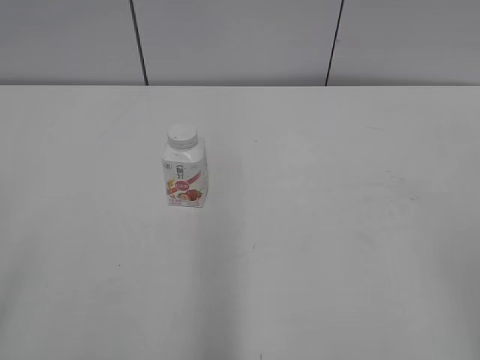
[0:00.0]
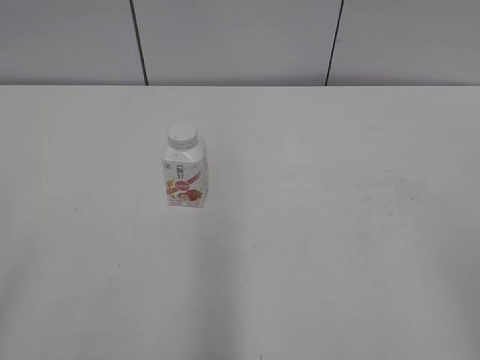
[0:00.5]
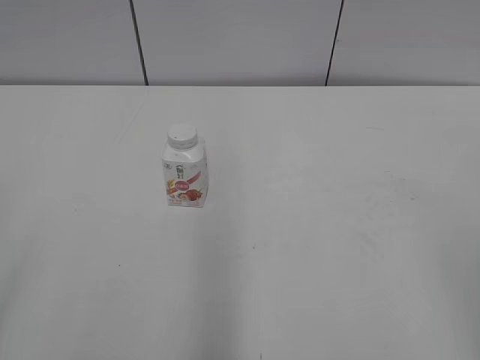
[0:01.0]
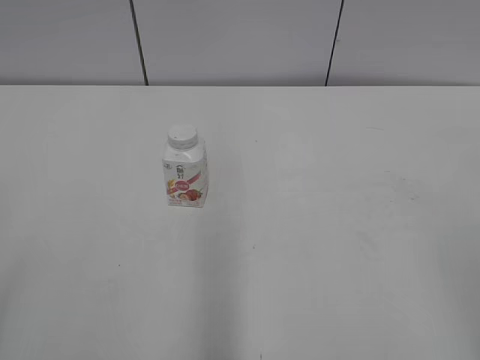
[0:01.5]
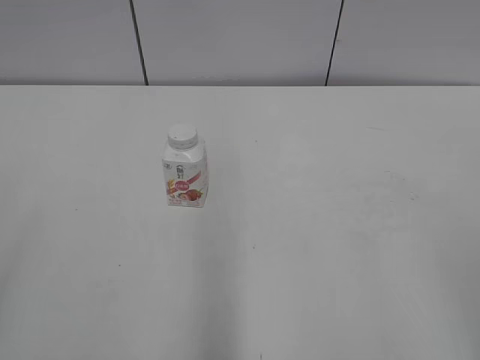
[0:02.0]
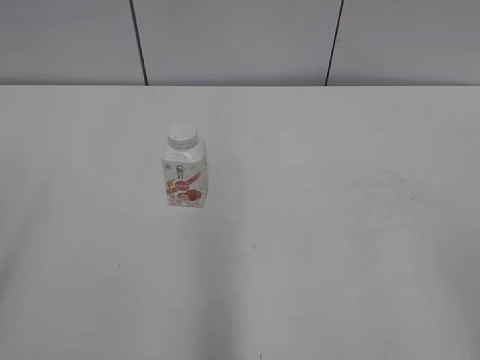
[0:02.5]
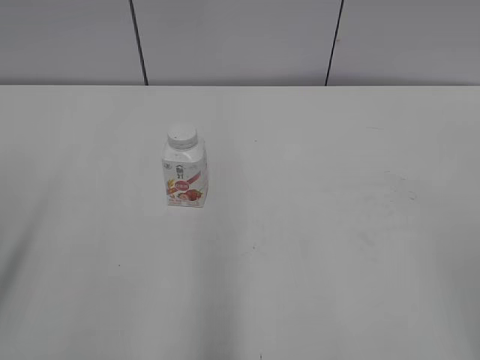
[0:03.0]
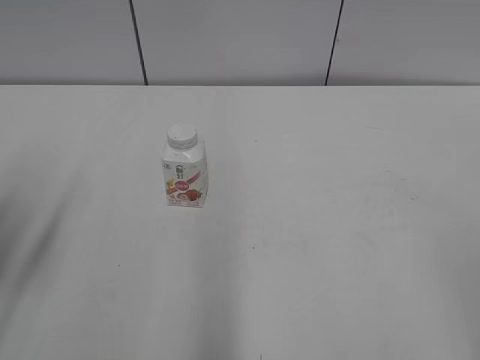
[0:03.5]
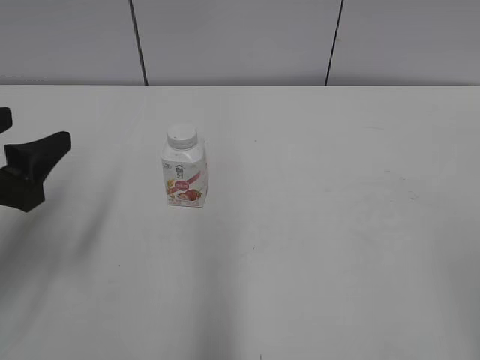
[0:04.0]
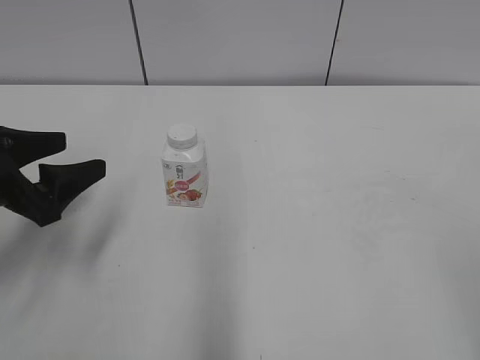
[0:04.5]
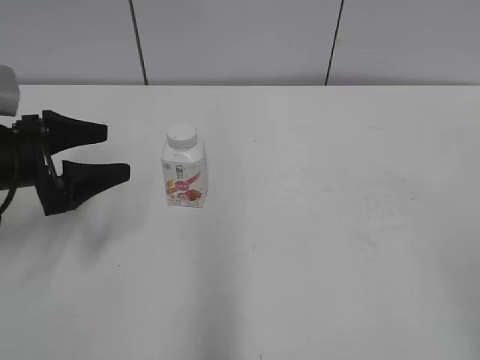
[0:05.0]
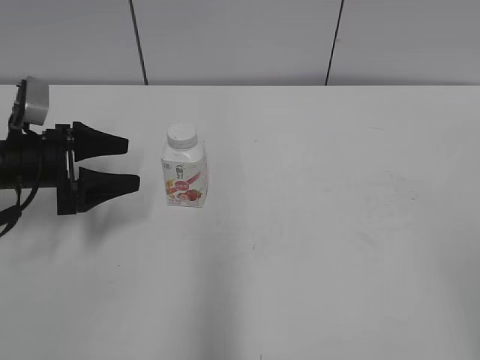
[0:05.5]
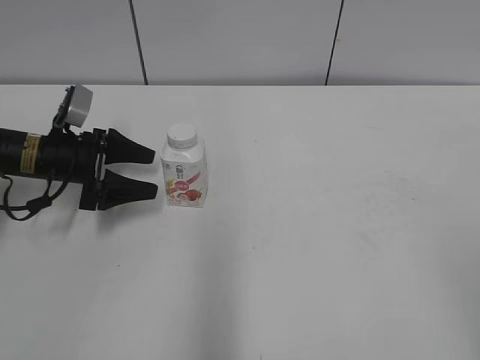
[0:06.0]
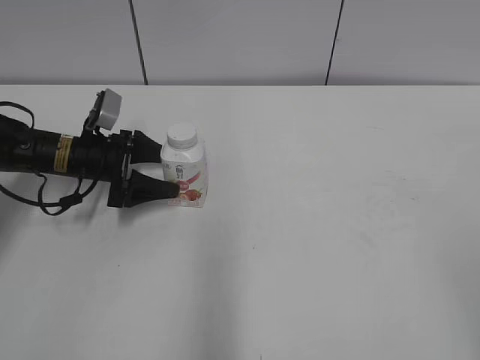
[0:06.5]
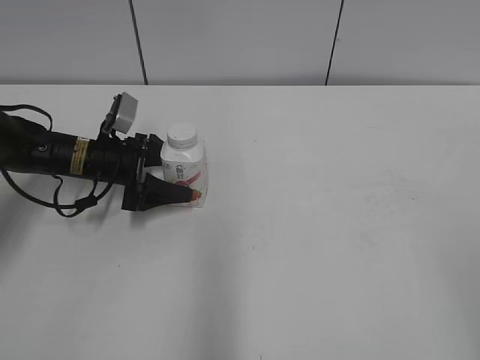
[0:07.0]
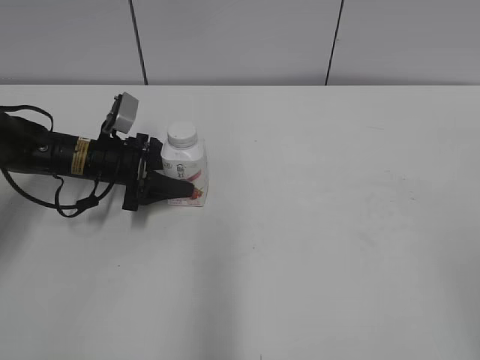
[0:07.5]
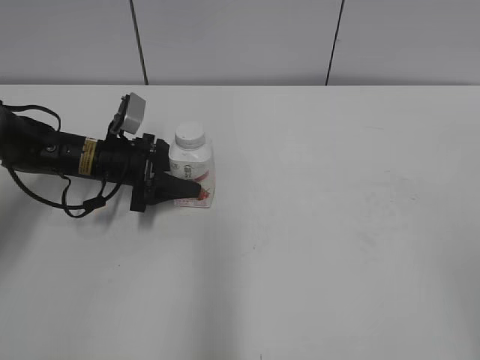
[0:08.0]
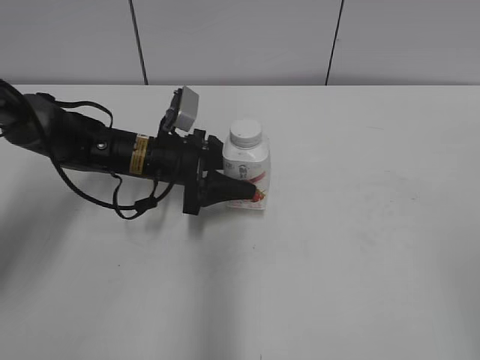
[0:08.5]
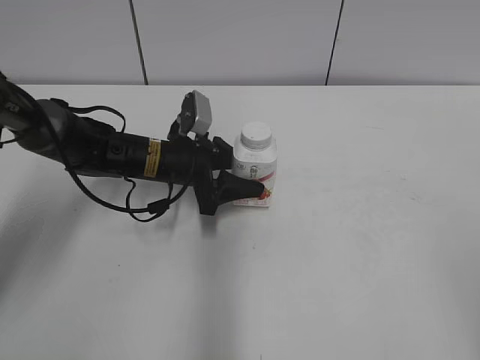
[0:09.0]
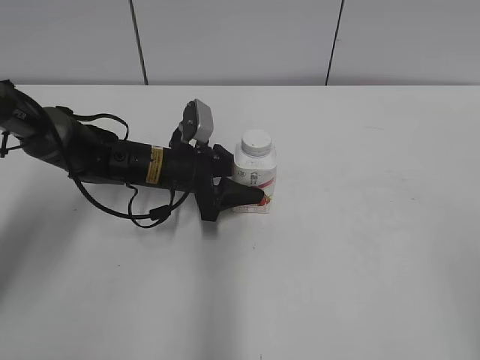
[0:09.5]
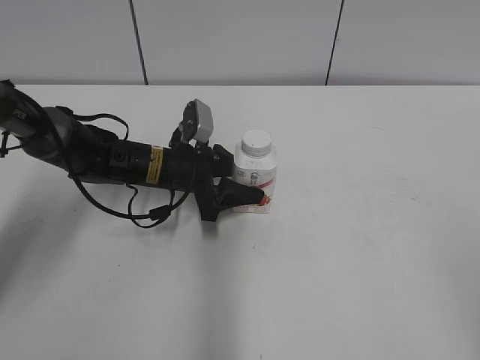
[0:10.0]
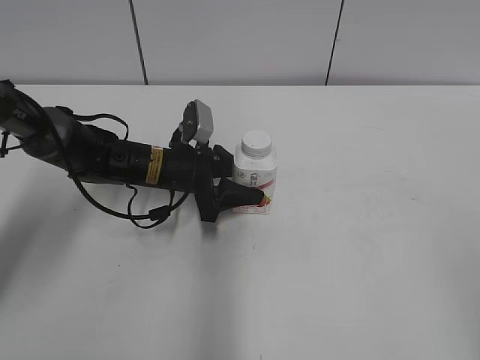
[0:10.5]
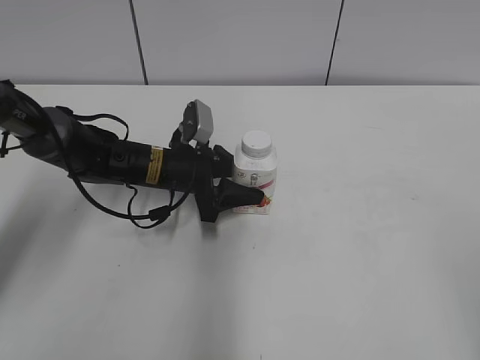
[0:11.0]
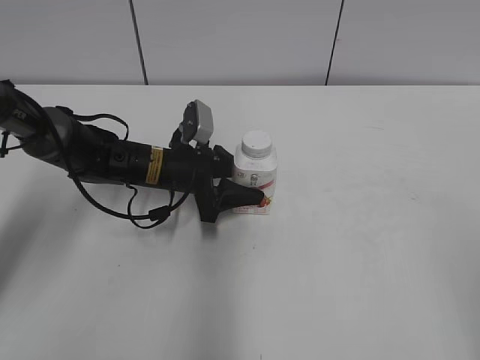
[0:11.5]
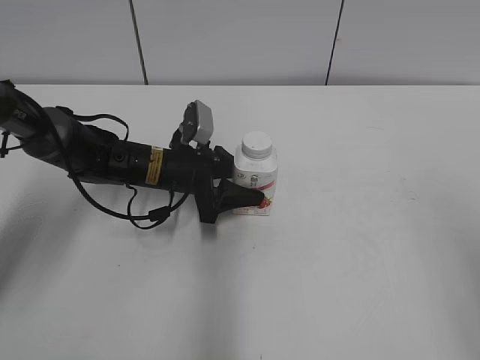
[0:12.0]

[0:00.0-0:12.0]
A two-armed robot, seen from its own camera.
Step, 0:00.0 to 0:07.0: Grab the Yili Changqing with the left hand.
Step, 0:07.5 to 0:10.0: Move the Yili Changqing from left to right.
0:02.0 to 0:04.0: The left gripper goes about 25 cm forward and downward.
0:04.0 to 0:06.0: The left gripper moves forward and downward, about 20 cm.
0:06.0 to 0:08.0: The left gripper is displaced to the right by roughly 5 cm, and closes its fingers.
0:08.0 to 0:10.0: The left gripper travels to the right by about 10 cm.

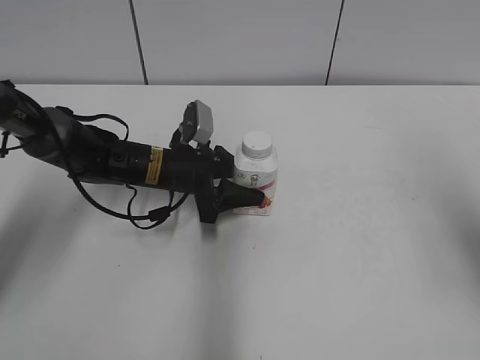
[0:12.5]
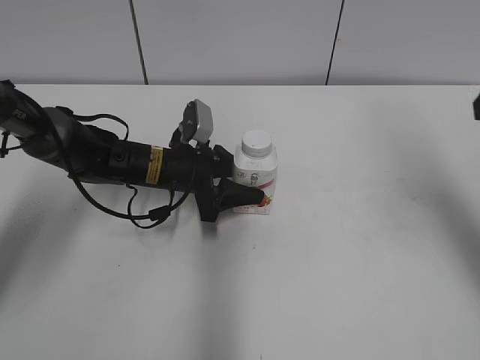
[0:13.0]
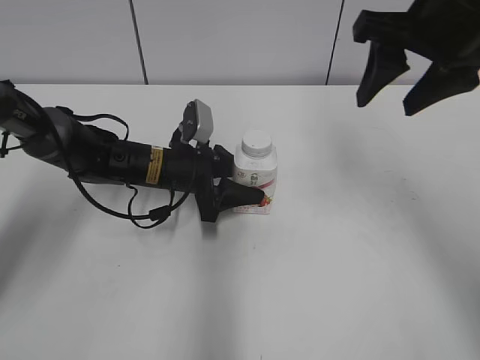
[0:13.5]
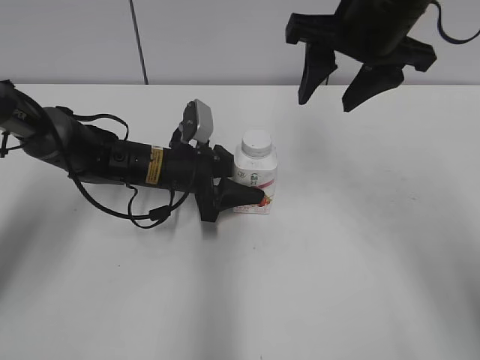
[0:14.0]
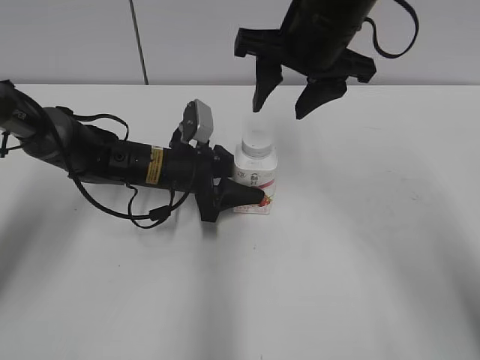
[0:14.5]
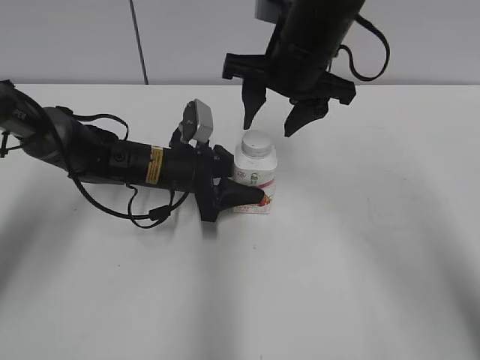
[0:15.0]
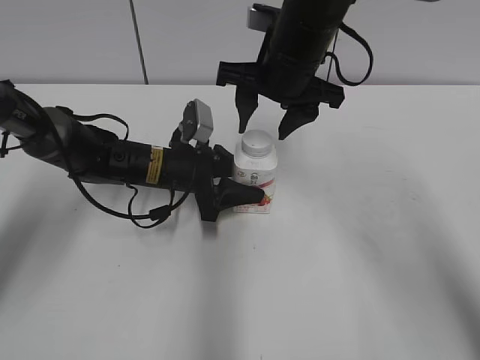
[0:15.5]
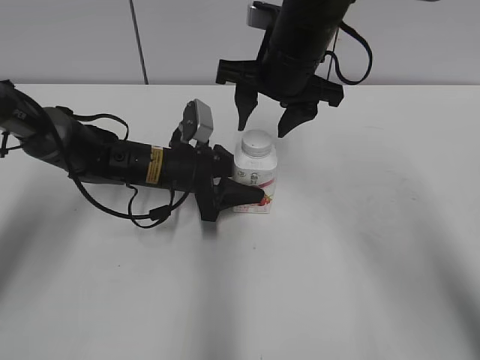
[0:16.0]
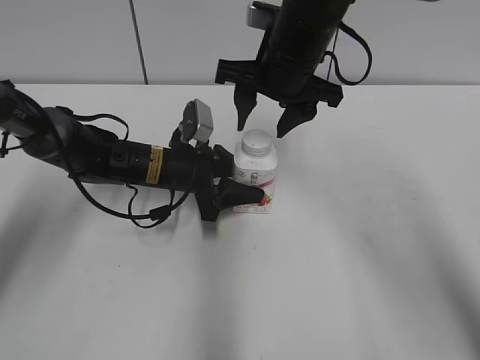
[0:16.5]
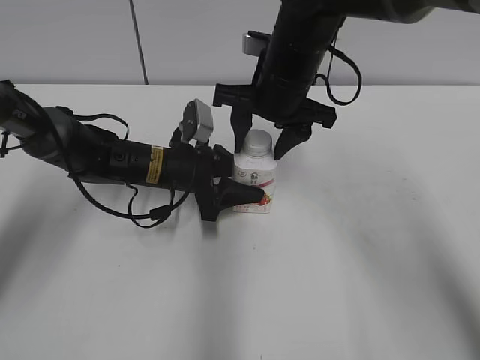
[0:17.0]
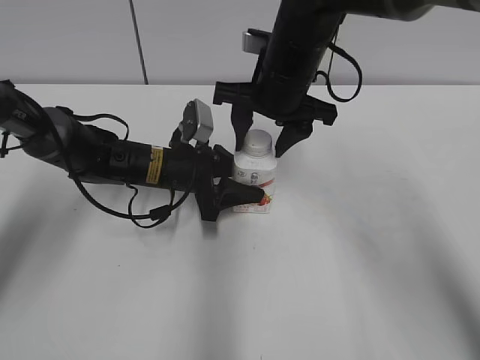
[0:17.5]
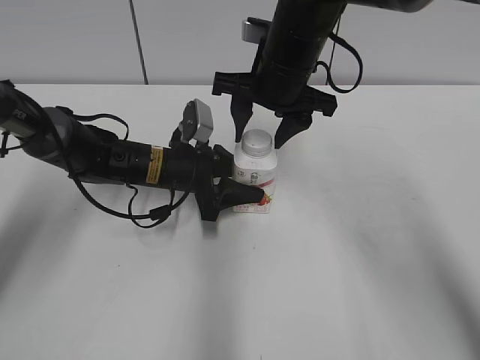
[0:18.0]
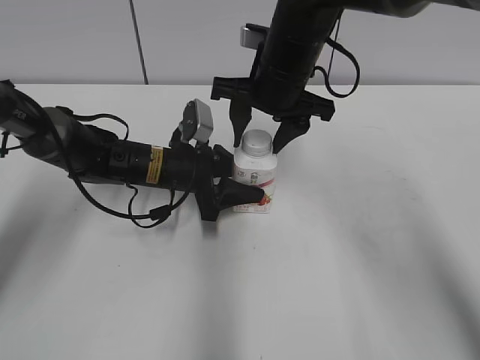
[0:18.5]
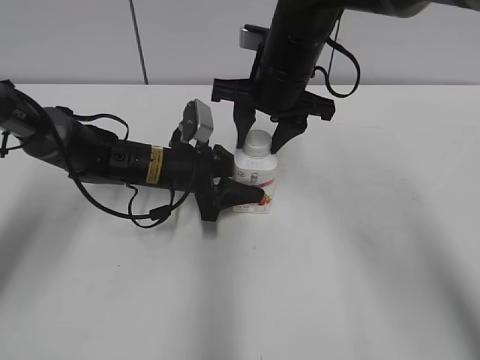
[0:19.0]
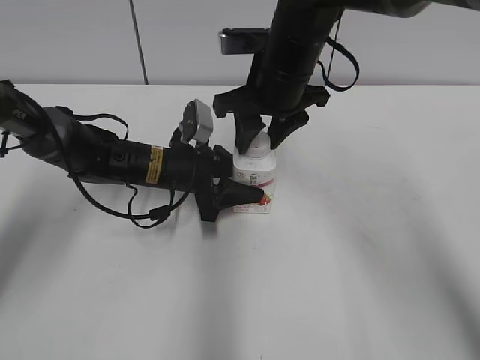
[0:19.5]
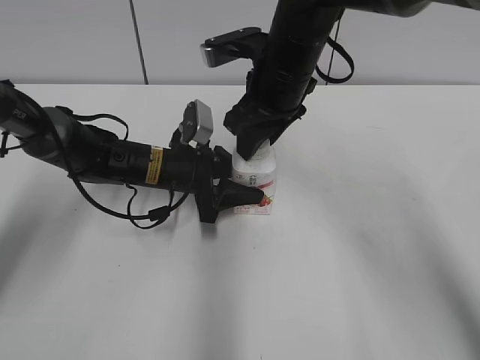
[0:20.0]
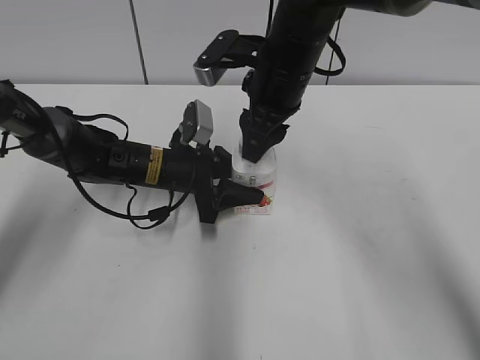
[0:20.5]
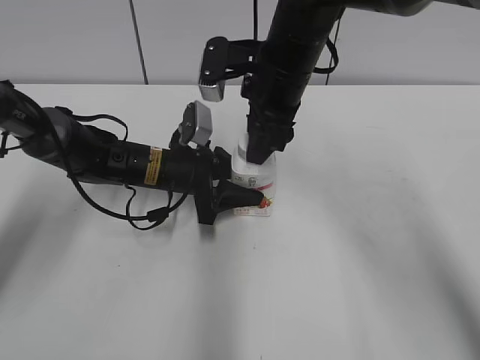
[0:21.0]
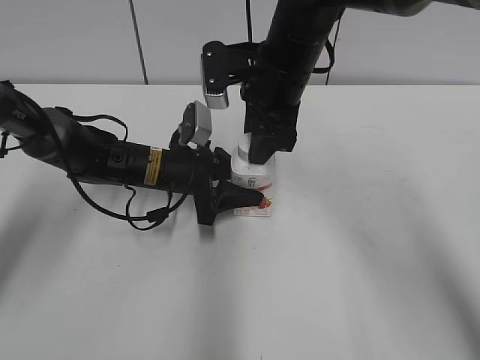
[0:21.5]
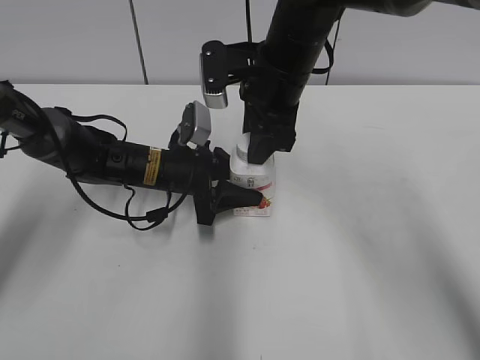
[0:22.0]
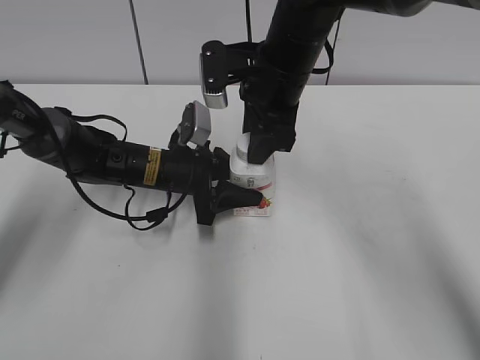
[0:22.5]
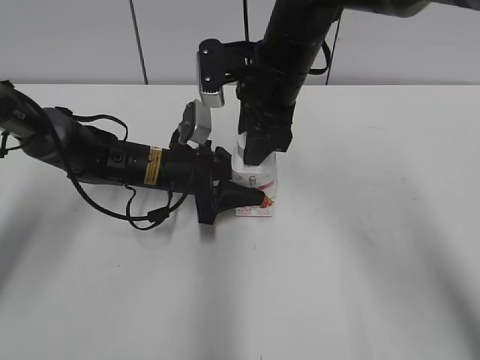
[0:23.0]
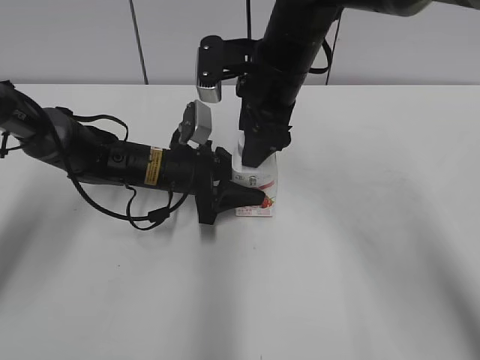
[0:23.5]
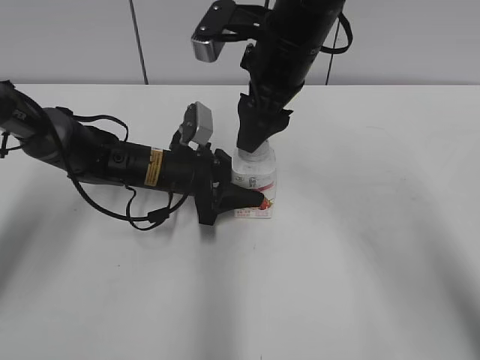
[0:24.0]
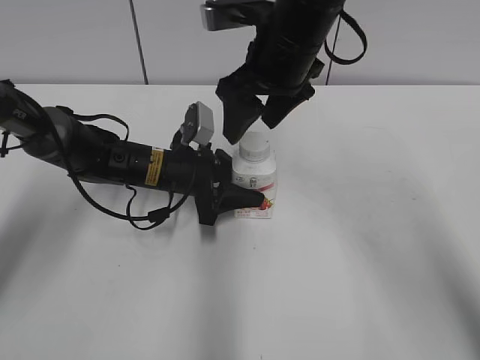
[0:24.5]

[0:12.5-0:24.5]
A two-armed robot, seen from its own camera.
0:12.5 to 0:14.5: The right gripper moves to the left and forward, about 30 cm.
0:14.5 to 0:16.5: The right gripper ends up roughly 5 cm from where it was.
0:16.5 to 0:18.5: The grippers move only a little.
0:18.5 to 0:20.5: The right gripper closes its fingers.
0:22.5 to 0:24.5: The right gripper opens up.

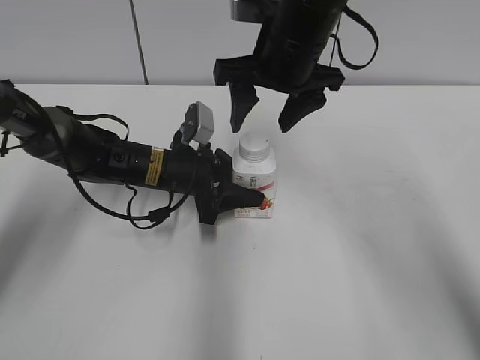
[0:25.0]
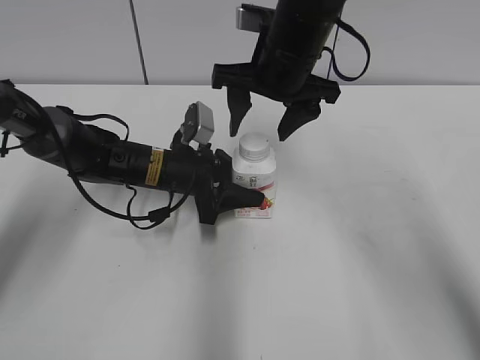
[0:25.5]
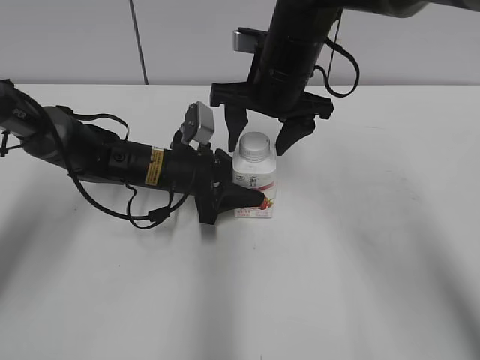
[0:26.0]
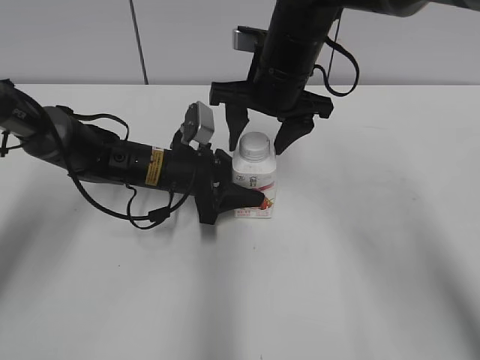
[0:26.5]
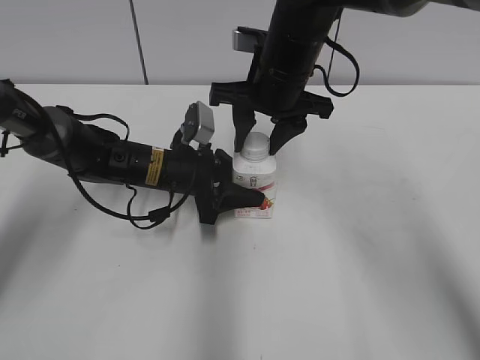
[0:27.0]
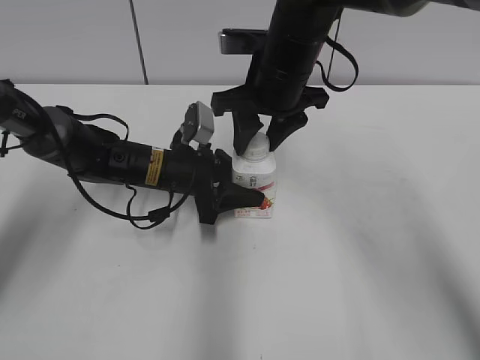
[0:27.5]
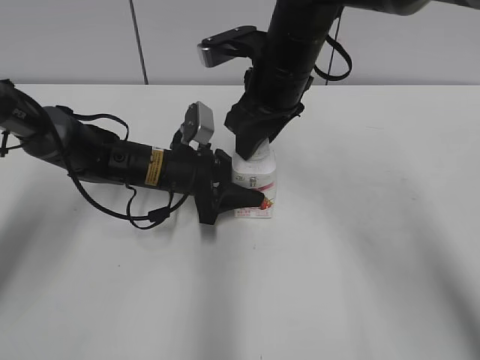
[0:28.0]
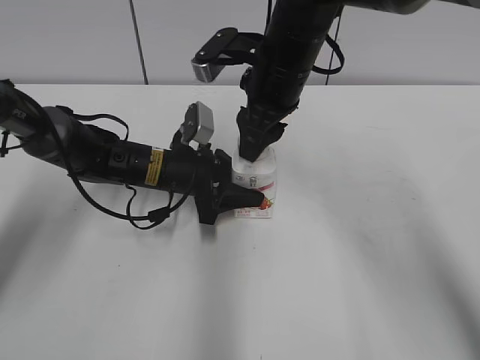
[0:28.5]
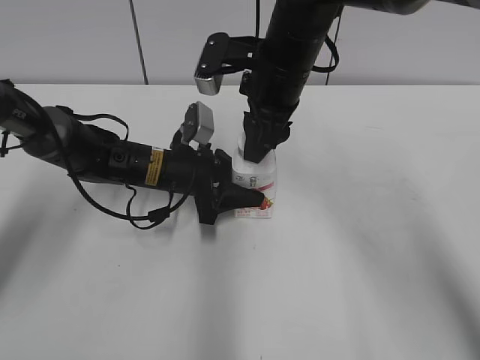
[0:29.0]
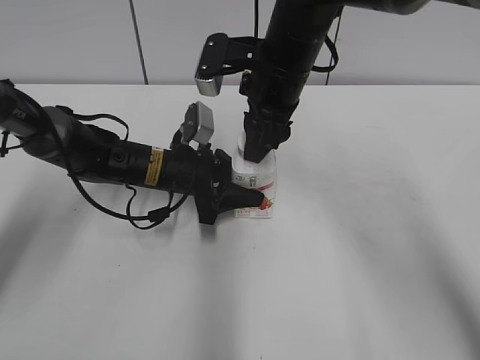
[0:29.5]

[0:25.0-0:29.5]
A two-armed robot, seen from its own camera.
0:25.0 to 0:27.0: The right gripper closes up.
